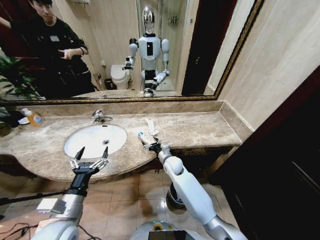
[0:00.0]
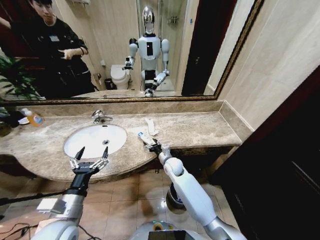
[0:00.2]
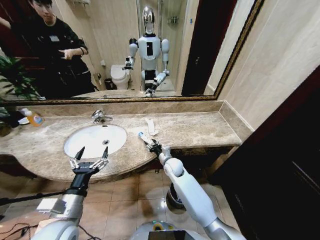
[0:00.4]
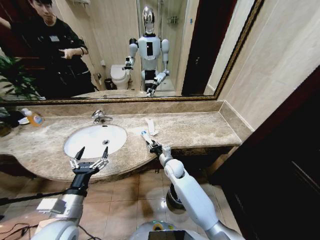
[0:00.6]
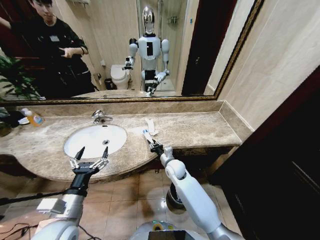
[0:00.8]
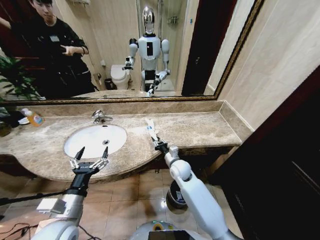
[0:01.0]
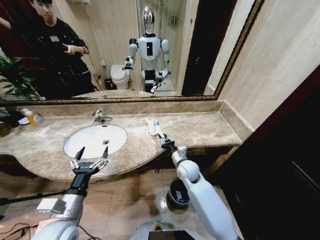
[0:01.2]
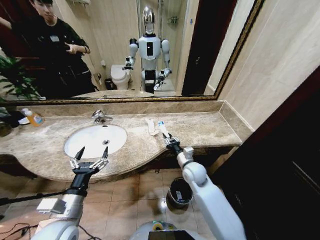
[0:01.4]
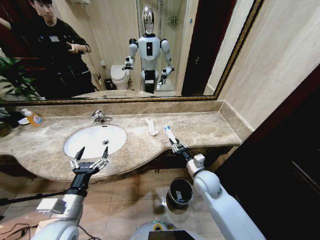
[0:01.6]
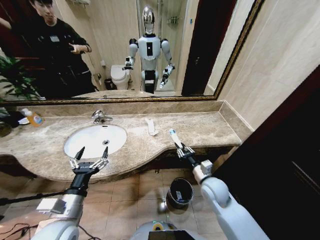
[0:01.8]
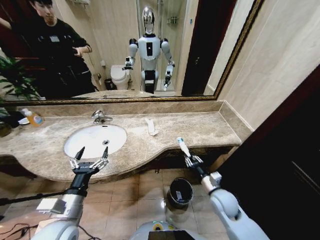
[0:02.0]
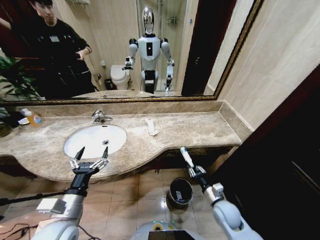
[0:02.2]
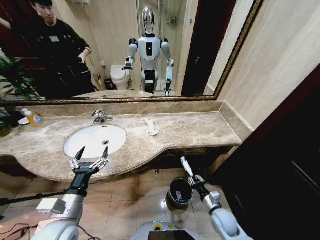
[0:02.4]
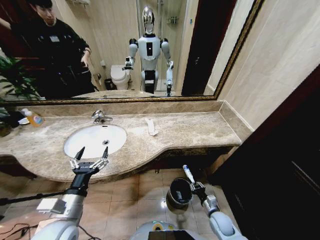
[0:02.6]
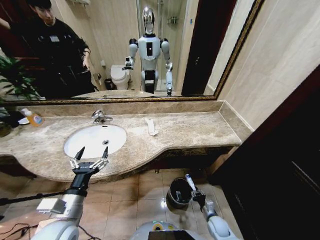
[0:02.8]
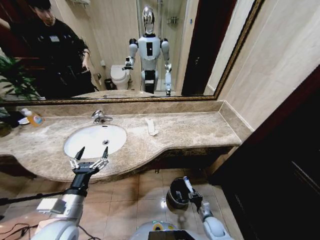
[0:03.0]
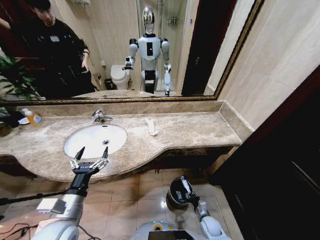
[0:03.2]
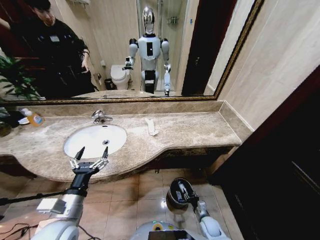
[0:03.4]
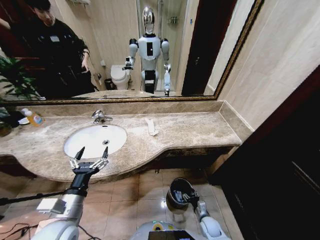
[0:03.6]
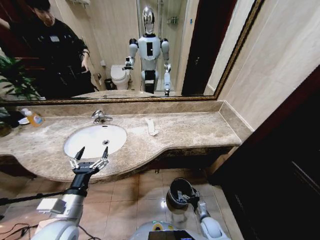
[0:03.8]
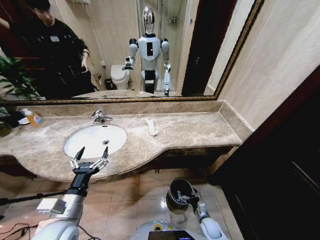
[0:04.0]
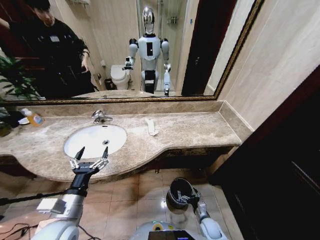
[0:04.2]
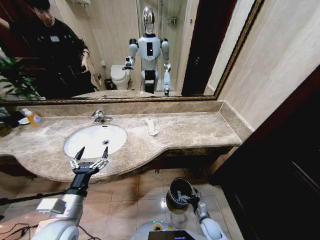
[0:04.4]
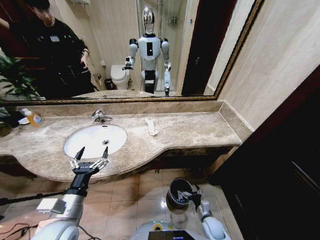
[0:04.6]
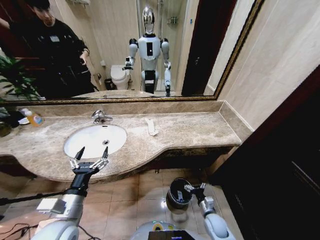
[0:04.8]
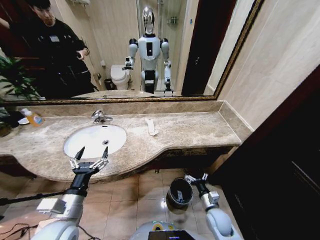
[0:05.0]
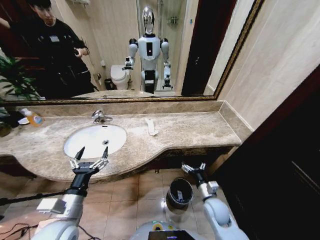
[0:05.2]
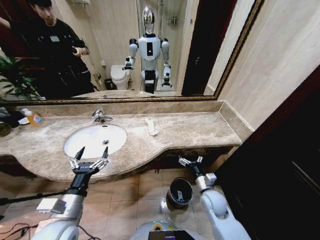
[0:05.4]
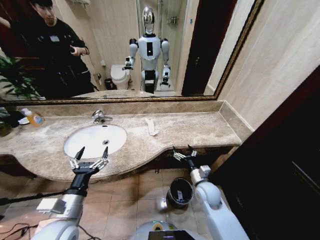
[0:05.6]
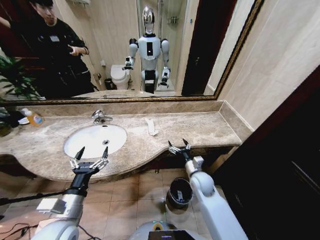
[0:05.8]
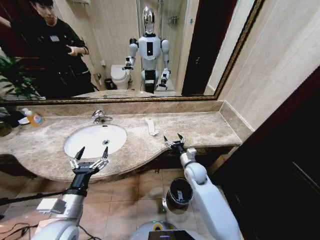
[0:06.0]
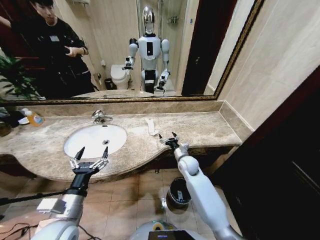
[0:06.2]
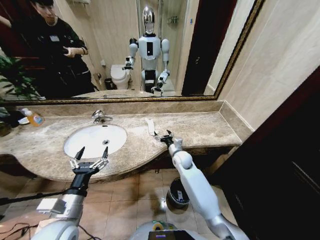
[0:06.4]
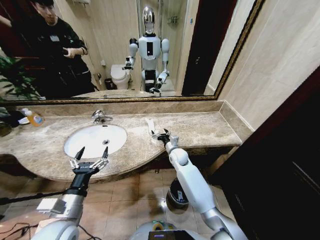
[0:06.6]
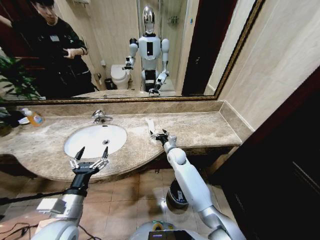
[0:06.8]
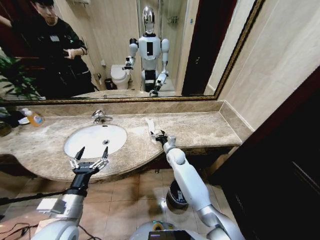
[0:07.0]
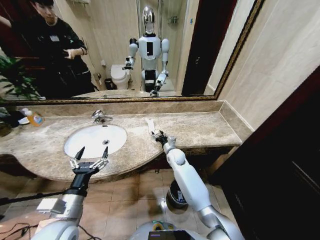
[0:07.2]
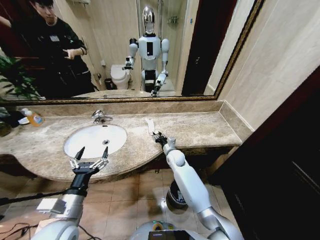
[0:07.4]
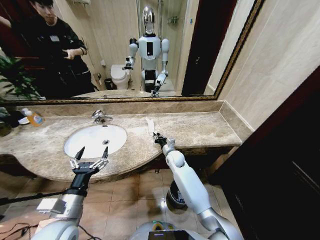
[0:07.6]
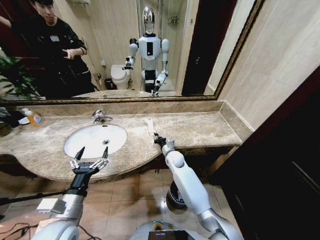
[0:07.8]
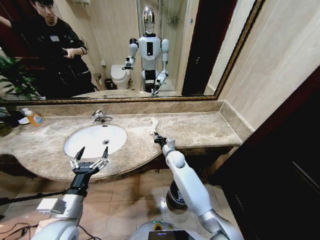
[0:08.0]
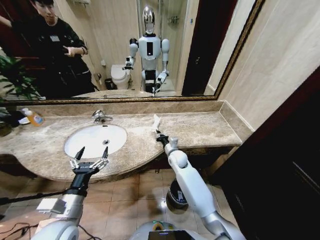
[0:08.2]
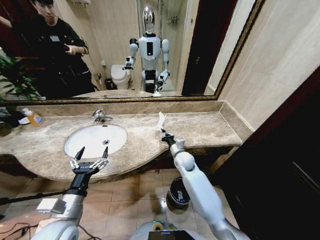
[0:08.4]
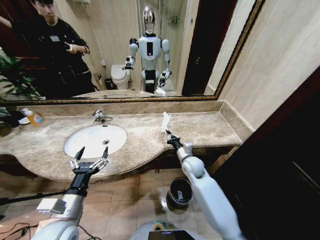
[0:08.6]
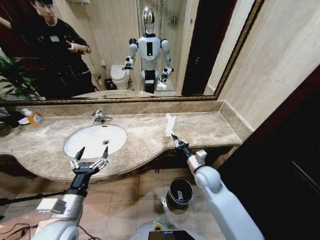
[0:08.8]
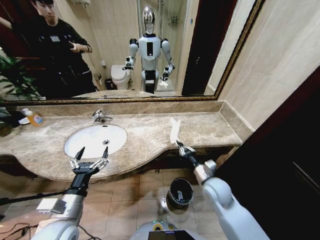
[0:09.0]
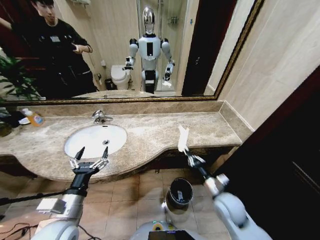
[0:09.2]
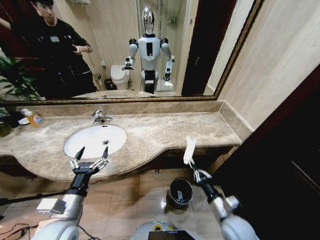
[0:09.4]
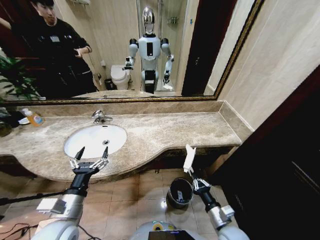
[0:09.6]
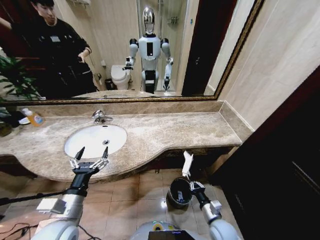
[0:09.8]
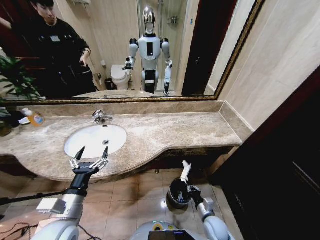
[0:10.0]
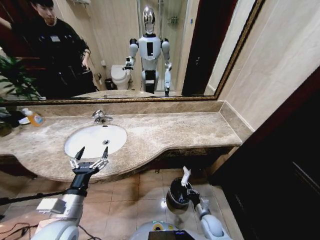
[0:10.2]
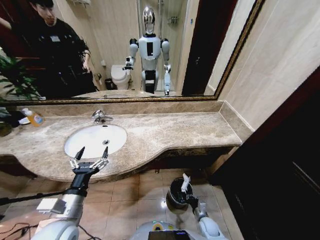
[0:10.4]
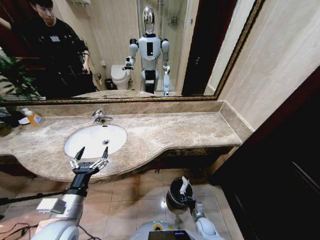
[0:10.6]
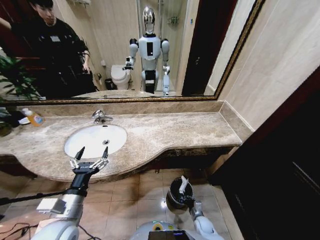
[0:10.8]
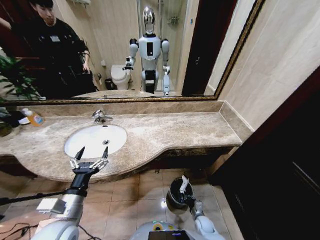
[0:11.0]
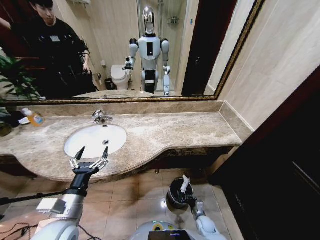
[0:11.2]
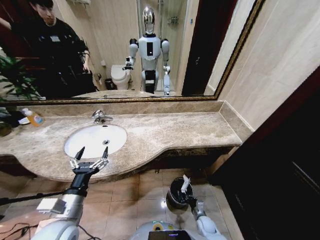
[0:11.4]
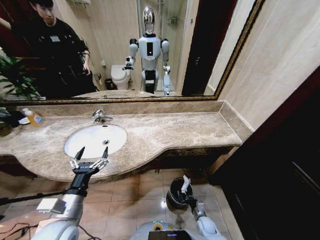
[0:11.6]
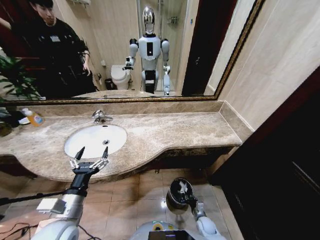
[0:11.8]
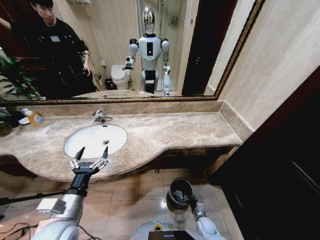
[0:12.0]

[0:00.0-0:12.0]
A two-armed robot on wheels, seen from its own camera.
Task of the whole recording: Pick up the trash from the sink and place it in the trash bin.
0:00.0 to 0:01.6: The right gripper goes some 15 cm to the right, backward and upward, and closes.
0:01.6 to 0:03.0: The right gripper is displaced downward and backward by approximately 30 cm.
0:03.0 to 0:04.4: The right gripper opens up.
0:04.4 to 0:06.0: The right gripper is displaced upward and forward by approximately 30 cm.
0:06.0 to 0:07.6: The right gripper moves forward and to the left, some 10 cm, and closes its fingers.
0:07.6 to 0:09.0: The right gripper travels backward and to the right by roughly 25 cm.
0:09.0 to 0:10.4: The right gripper goes about 30 cm downward.
0:10.4 to 0:12.0: The right gripper opens.

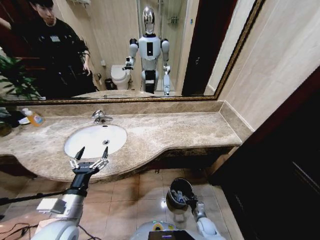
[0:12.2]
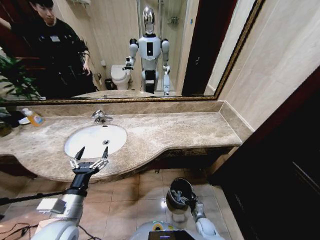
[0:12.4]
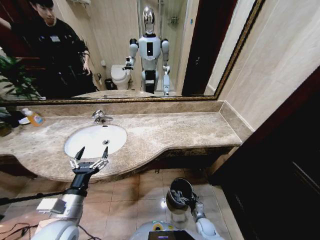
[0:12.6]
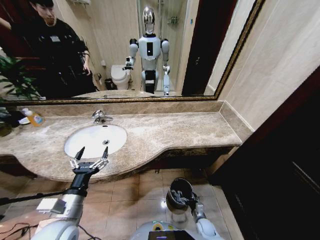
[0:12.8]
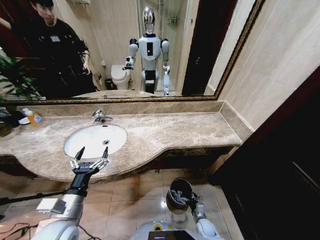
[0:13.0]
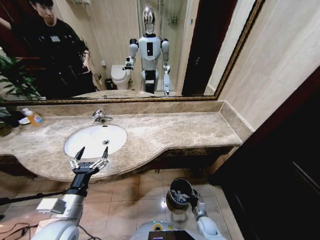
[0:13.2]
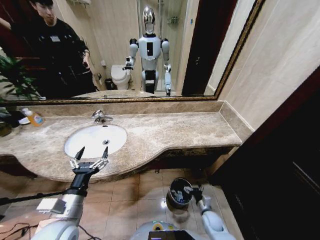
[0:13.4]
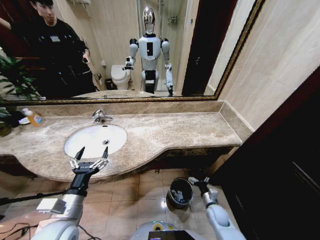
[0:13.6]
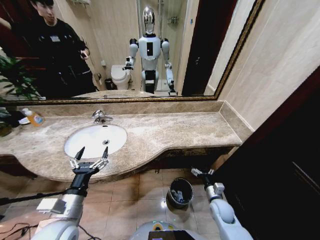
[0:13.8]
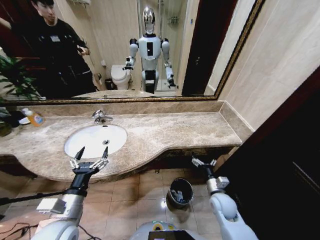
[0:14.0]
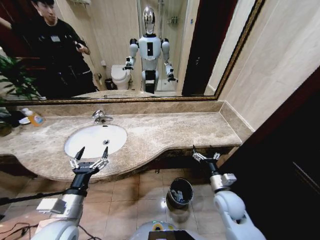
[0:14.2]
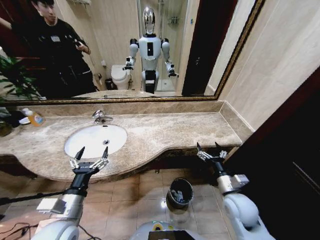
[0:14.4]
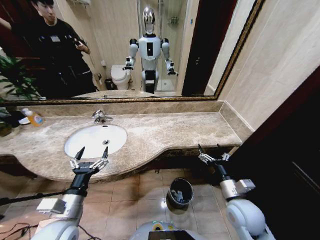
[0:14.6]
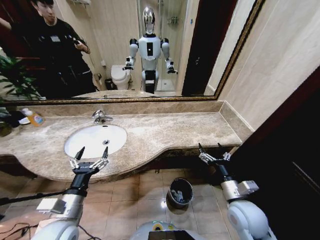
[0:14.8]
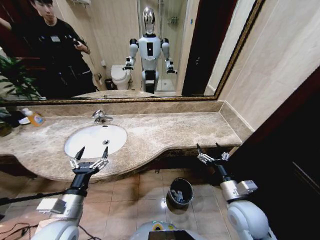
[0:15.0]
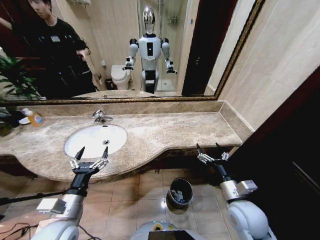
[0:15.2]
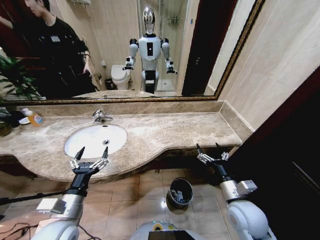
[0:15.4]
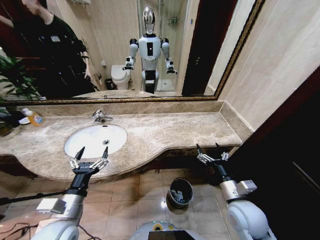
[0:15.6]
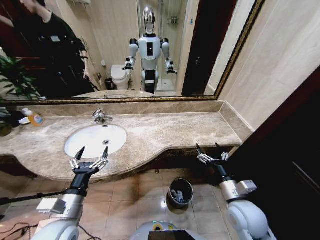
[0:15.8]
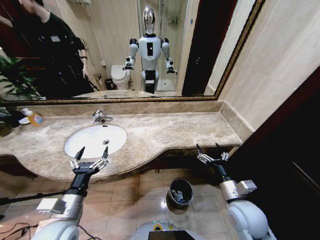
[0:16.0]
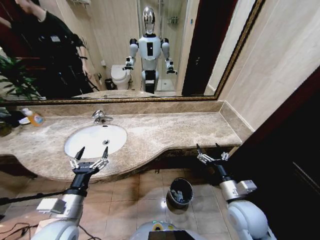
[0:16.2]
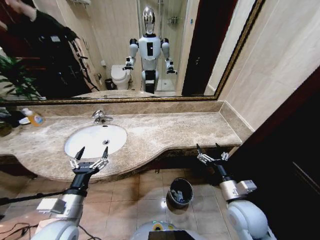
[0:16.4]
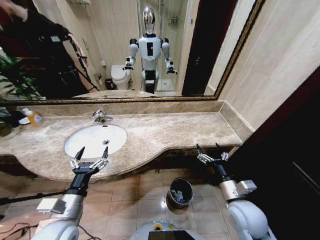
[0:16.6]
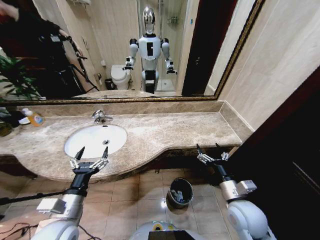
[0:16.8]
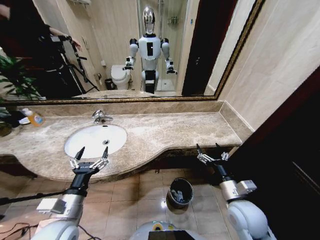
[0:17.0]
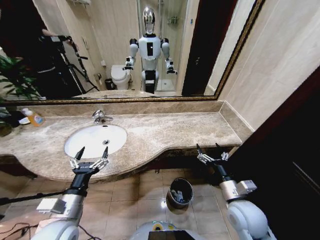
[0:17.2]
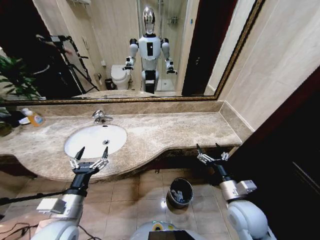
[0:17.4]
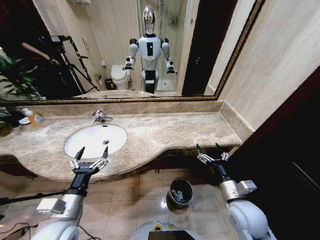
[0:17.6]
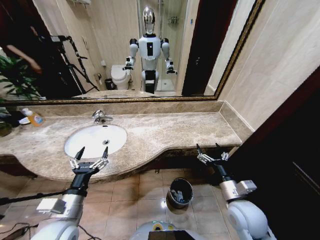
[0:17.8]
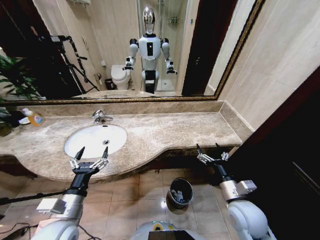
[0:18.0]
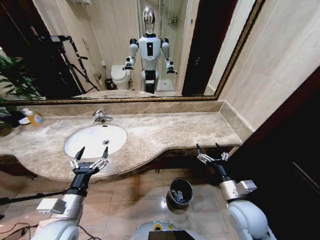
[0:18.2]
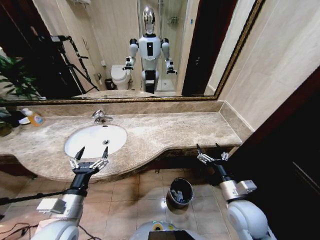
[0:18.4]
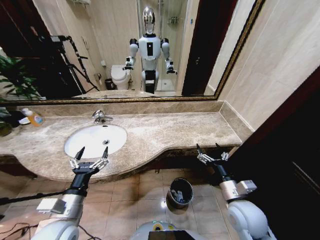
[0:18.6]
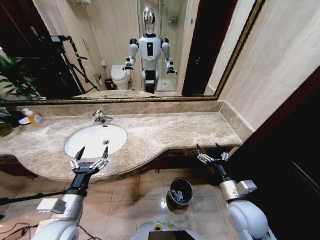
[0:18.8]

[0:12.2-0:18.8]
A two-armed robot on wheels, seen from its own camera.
Task of the whole recording: Pick up the trash from the sink and place it in the trash bin.
0:12.2 to 0:13.8: The right gripper is displaced upward by some 20 cm, and opens its fingers.
0:13.8 to 0:15.4: The right gripper shifts some 20 cm upward.
0:15.4 to 0:18.8: Neither gripper changes place.

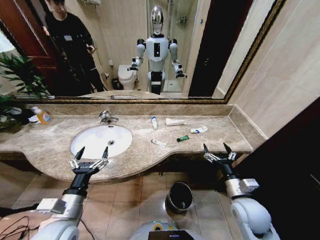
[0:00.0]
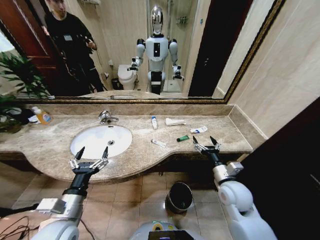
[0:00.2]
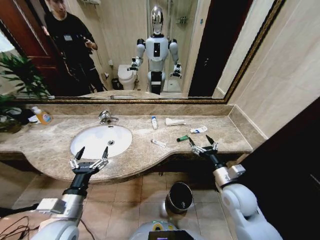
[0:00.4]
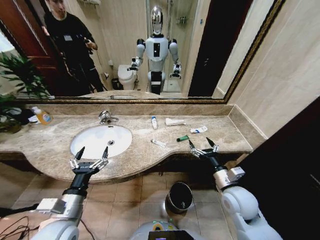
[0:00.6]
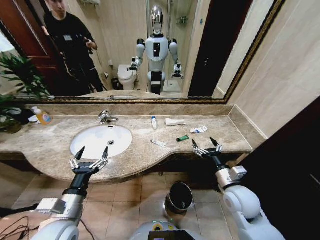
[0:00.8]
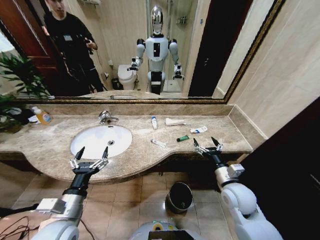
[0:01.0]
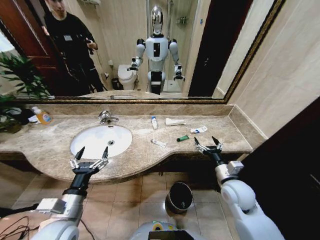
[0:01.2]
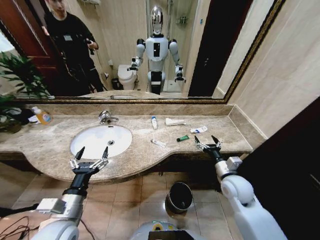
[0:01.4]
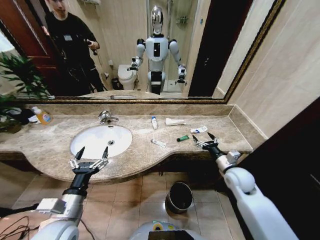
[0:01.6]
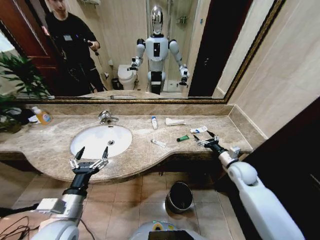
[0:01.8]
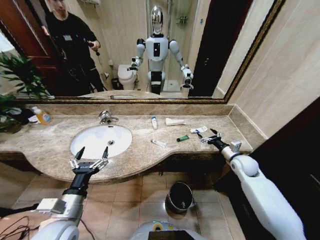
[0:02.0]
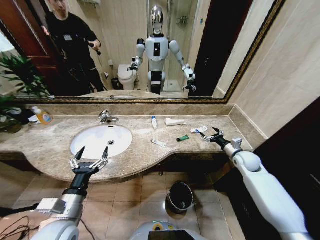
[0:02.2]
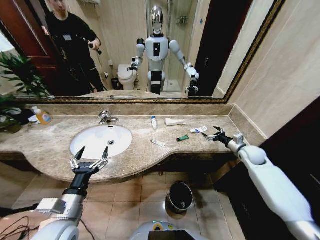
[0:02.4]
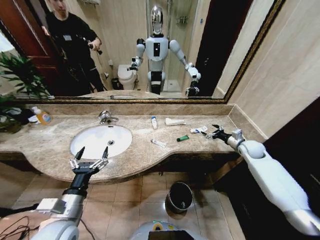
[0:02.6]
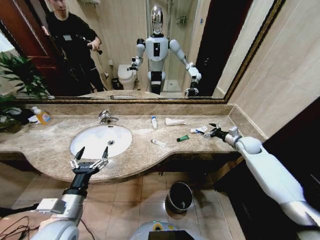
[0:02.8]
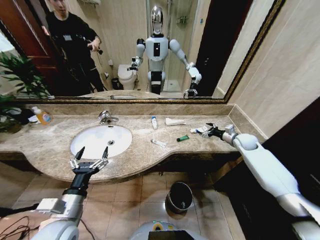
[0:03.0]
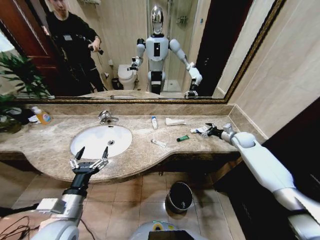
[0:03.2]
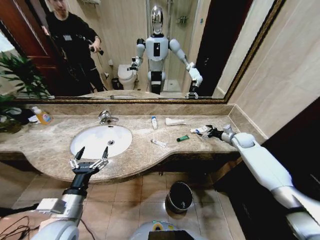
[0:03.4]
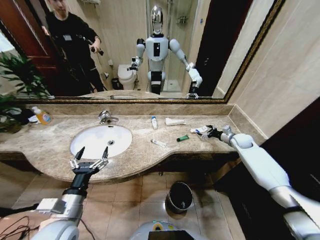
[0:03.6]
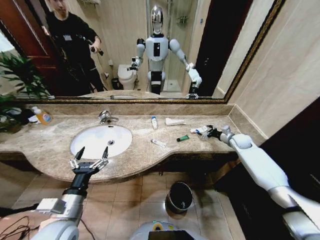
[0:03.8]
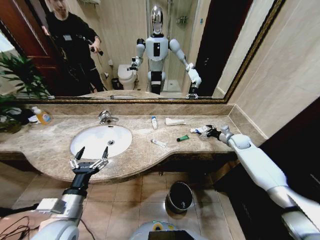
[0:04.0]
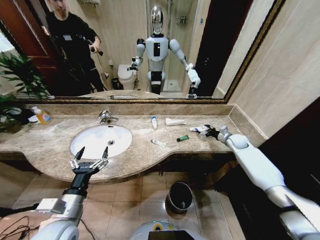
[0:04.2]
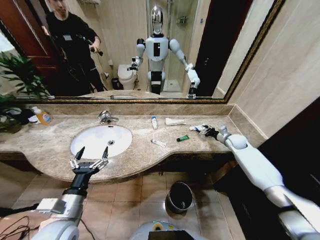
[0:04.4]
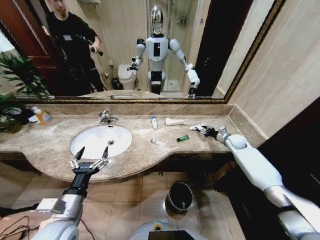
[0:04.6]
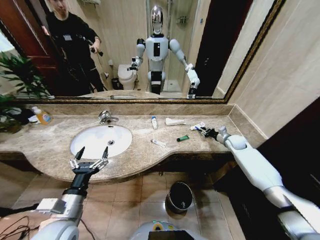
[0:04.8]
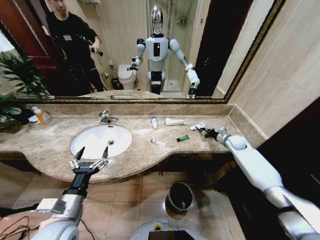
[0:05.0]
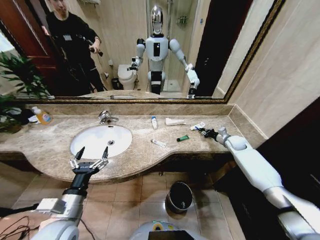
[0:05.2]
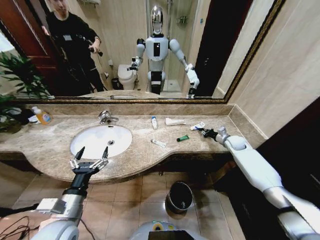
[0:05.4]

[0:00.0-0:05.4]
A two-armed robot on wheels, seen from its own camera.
Task of the whole recording: Pick up the trash from the sink and place it in the trash bin.
0:01.4 to 0:02.8: The right gripper travels forward and to the right by approximately 25 cm.
0:02.8 to 0:04.0: The right gripper changes place by some 5 cm.
0:04.0 to 0:05.4: The right gripper closes up.
